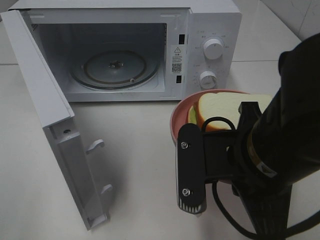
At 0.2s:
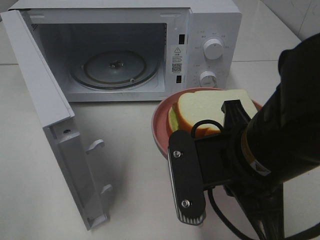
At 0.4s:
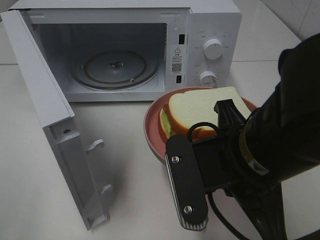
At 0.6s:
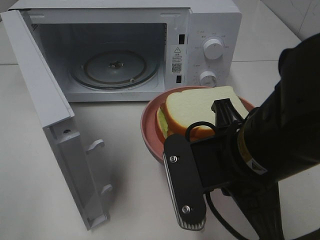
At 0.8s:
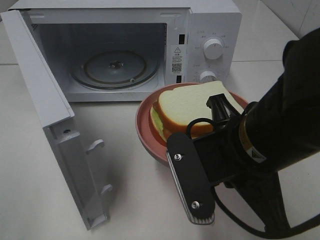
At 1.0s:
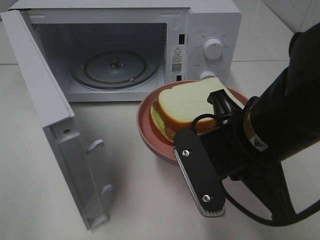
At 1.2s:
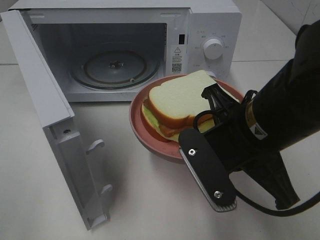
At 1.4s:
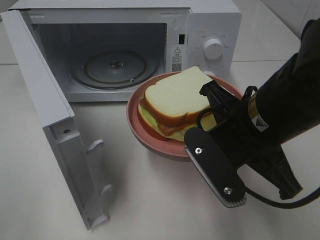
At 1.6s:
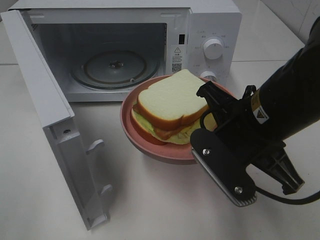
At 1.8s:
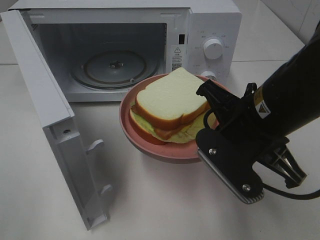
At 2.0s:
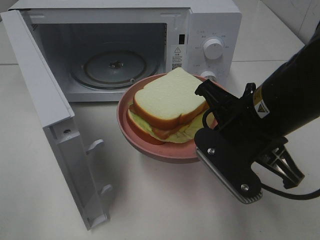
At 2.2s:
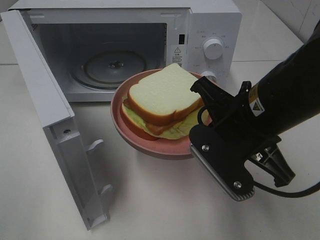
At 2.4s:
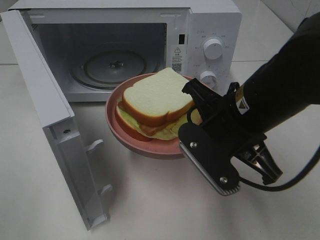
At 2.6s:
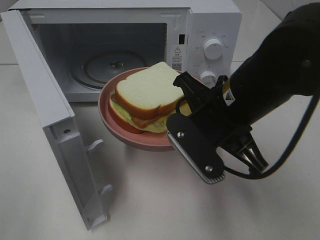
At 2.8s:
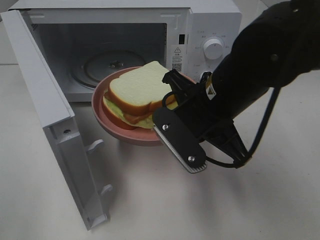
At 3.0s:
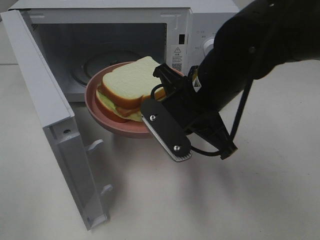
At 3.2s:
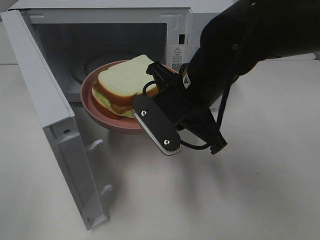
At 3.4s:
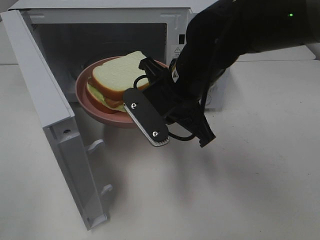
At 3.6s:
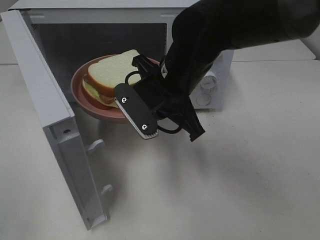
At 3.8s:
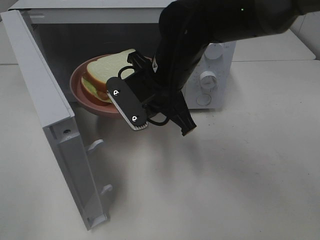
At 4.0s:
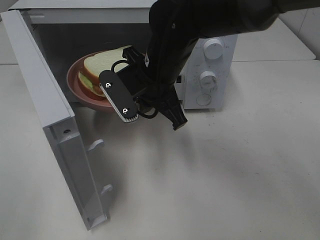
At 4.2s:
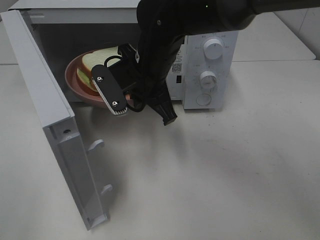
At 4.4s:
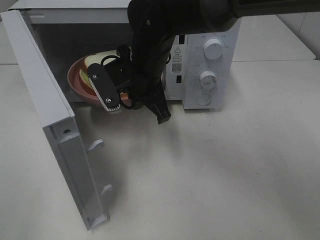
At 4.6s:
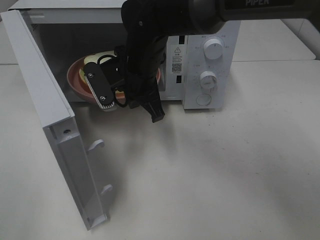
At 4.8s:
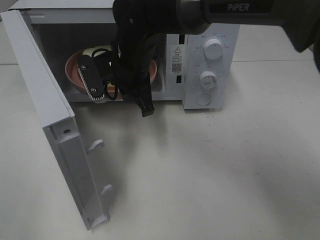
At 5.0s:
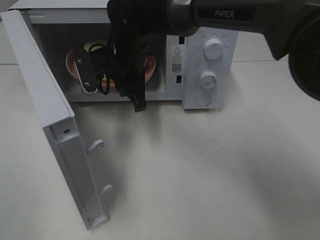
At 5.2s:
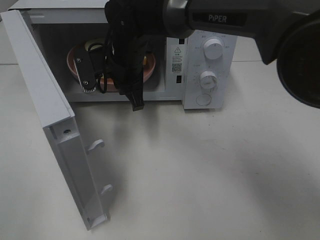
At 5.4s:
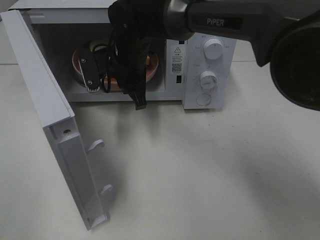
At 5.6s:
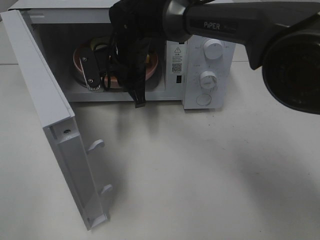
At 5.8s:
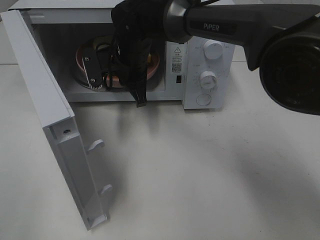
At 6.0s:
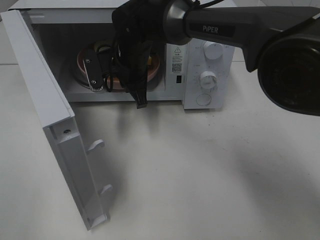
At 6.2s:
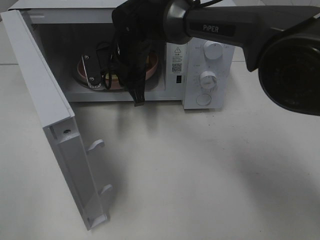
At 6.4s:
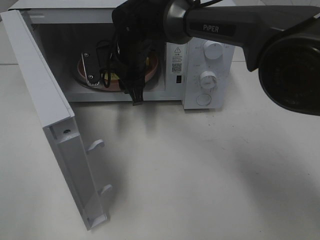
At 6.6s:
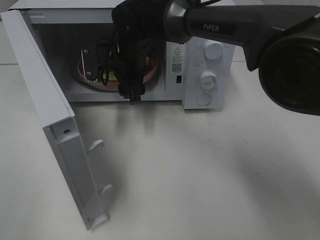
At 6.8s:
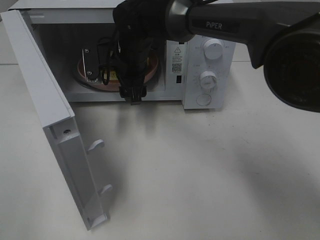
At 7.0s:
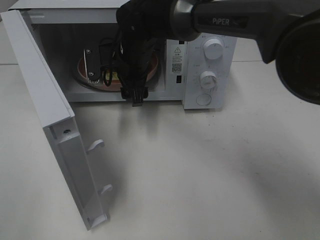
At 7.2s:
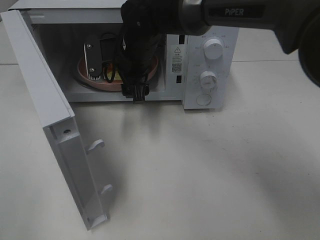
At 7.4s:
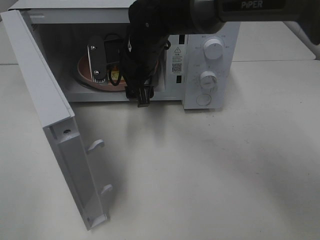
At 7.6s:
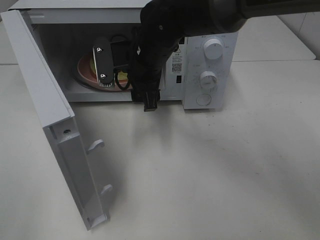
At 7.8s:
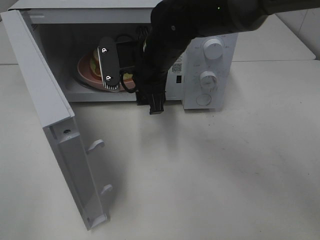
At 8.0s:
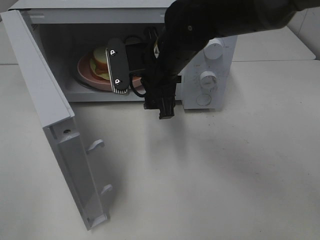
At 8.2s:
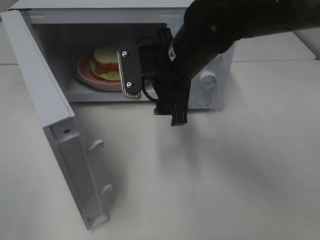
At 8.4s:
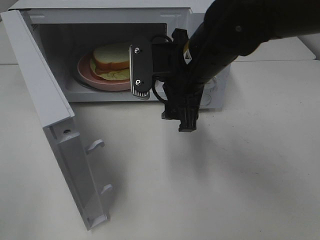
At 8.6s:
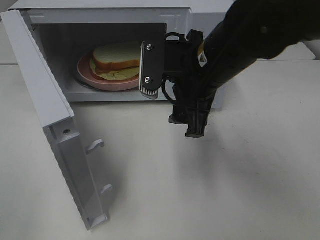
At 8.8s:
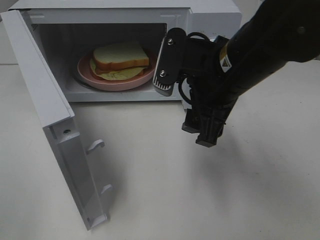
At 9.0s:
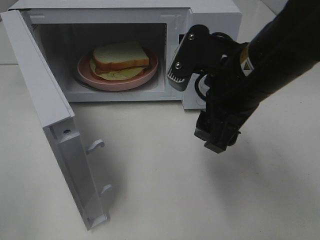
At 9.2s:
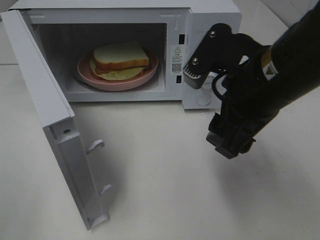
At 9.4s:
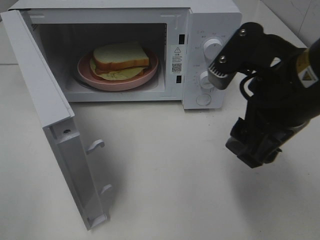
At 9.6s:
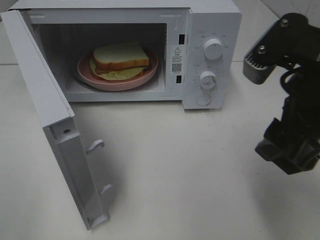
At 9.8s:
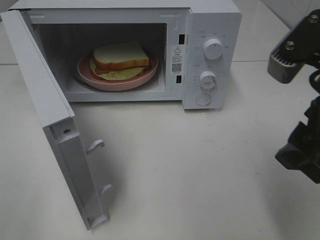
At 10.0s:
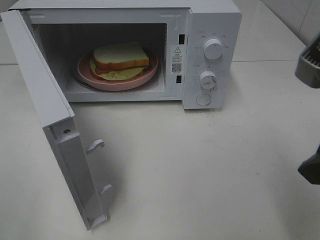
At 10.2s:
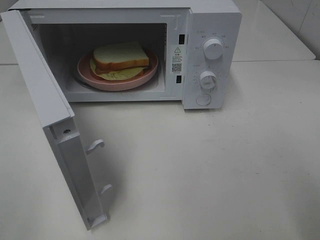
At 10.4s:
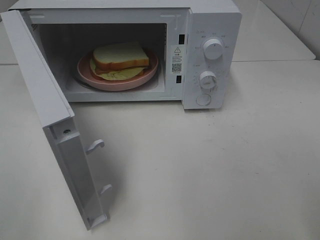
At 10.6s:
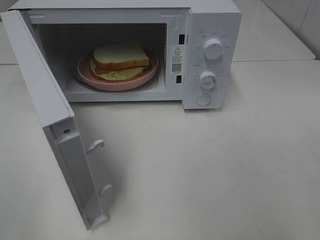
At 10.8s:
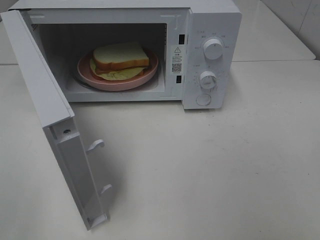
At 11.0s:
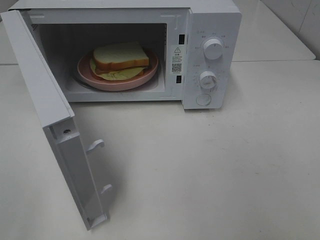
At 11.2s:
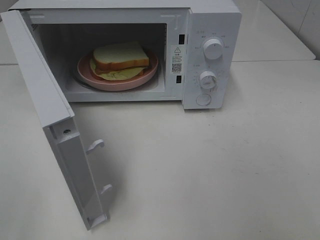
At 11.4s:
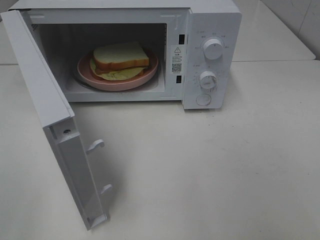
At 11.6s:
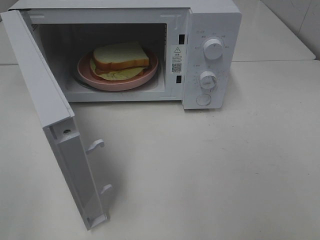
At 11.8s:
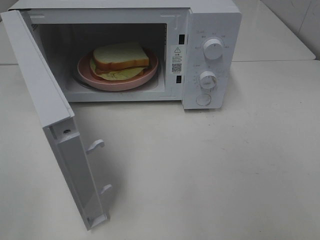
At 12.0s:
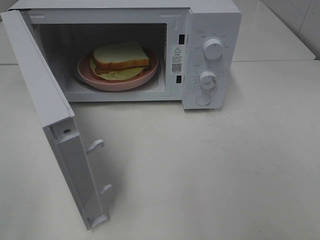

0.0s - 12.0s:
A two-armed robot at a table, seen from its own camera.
Task of the whole recording: Heat Sandwich.
Step, 0.0s - 7.8s: Right hand: place the plate in the microwave.
0.0s - 1.6s: The right gripper shifts about 5 cm forward.
1.6s - 3.0s: The right gripper goes approximately 10 cm forward and to the left.
3.0s - 4.4s: The right gripper moves forward and to the left, roughly 10 cm.
4.4s - 6.0s: The right gripper heads forward, covering some 5 cm.
6.0s - 7.6s: The right gripper goes roughly 5 cm backward, and opens its fingers.
7.6s - 9.0s: The right gripper goes approximately 20 cm backward and to the right.
9.0s - 10.4s: The right gripper moves backward, to the right and upward, roughly 20 cm.

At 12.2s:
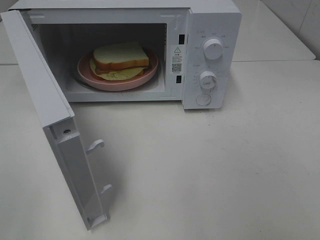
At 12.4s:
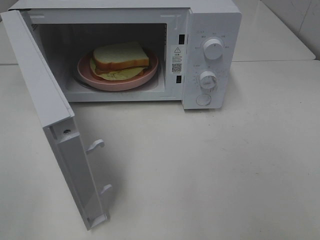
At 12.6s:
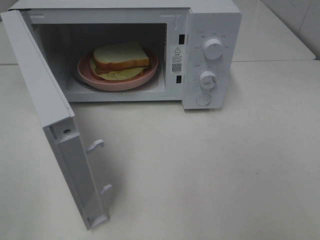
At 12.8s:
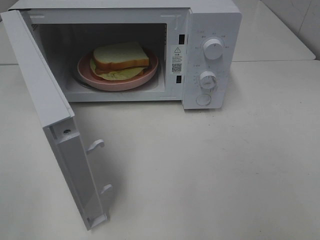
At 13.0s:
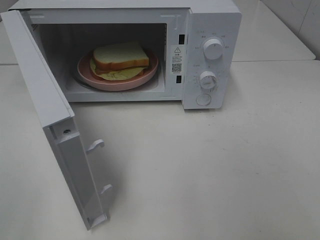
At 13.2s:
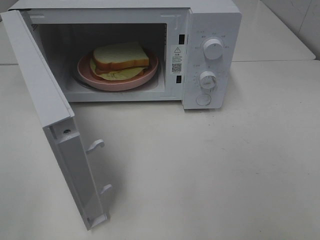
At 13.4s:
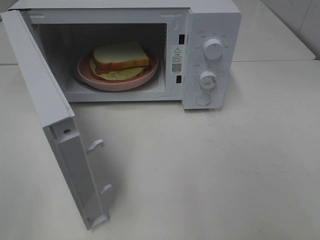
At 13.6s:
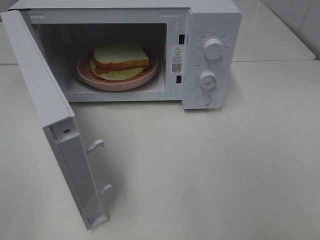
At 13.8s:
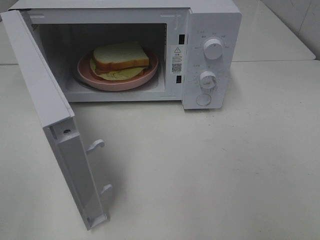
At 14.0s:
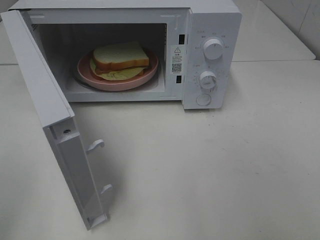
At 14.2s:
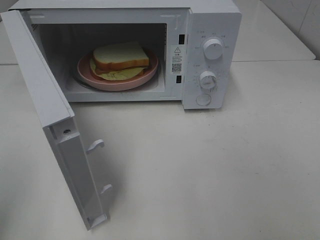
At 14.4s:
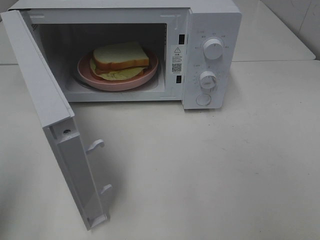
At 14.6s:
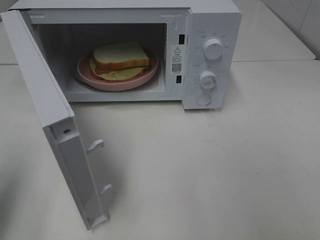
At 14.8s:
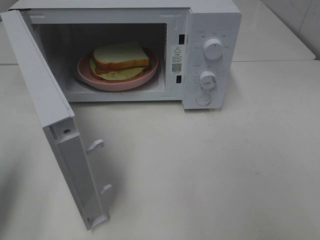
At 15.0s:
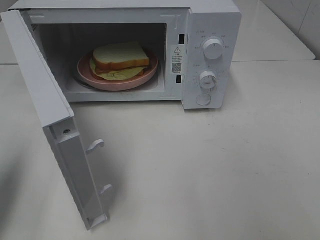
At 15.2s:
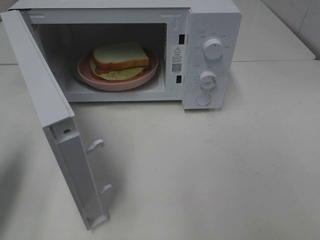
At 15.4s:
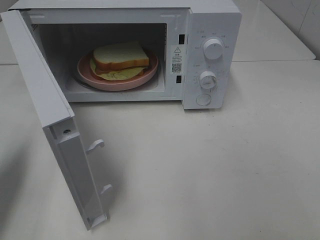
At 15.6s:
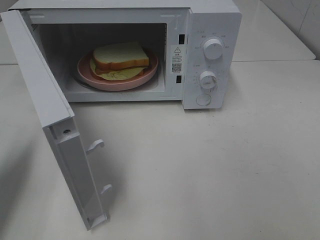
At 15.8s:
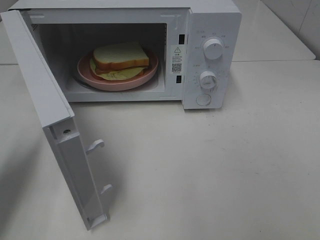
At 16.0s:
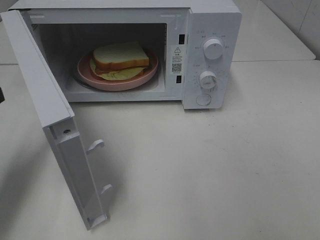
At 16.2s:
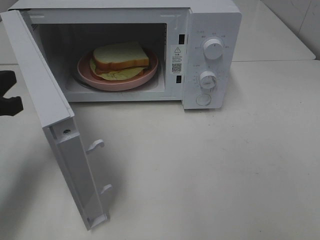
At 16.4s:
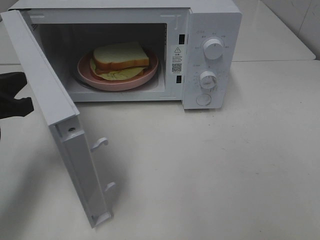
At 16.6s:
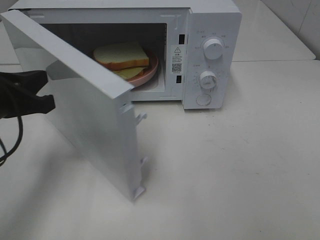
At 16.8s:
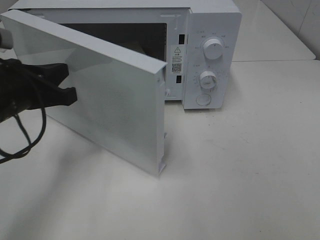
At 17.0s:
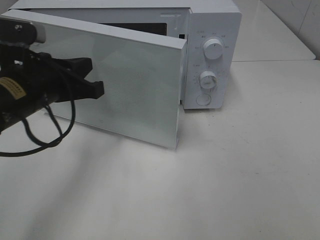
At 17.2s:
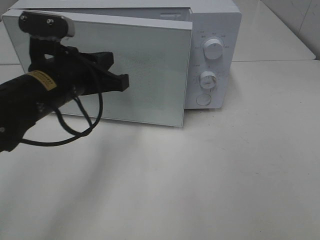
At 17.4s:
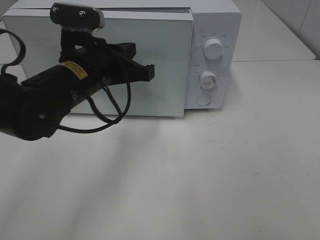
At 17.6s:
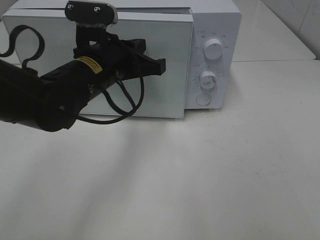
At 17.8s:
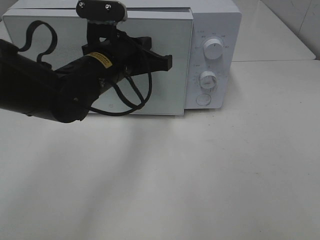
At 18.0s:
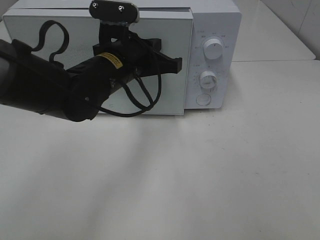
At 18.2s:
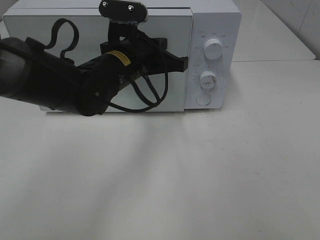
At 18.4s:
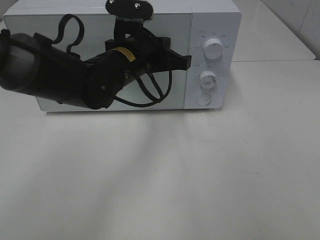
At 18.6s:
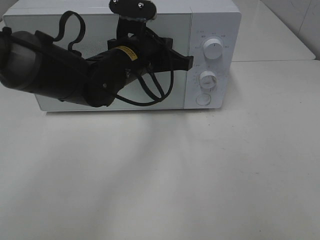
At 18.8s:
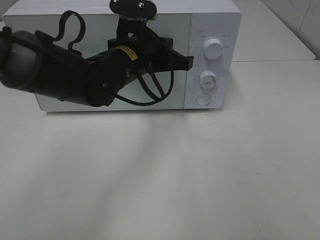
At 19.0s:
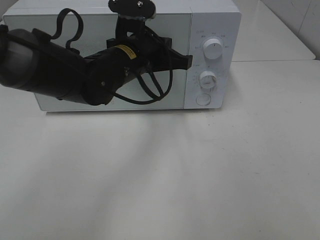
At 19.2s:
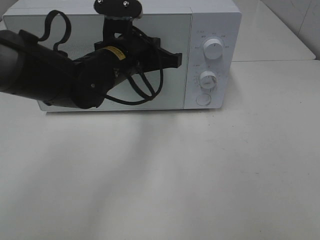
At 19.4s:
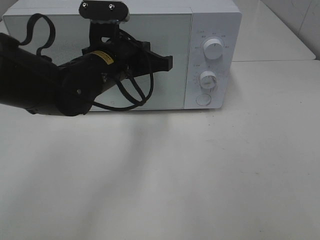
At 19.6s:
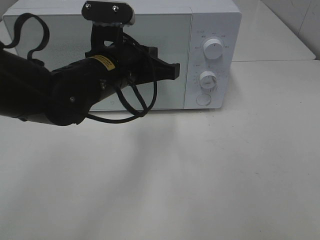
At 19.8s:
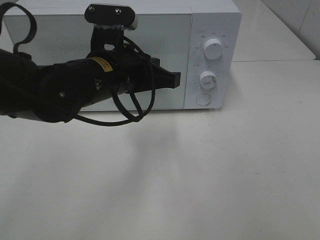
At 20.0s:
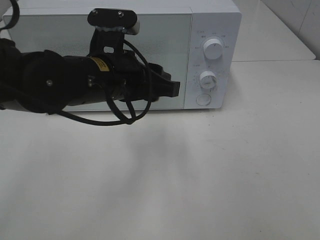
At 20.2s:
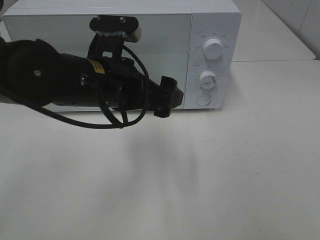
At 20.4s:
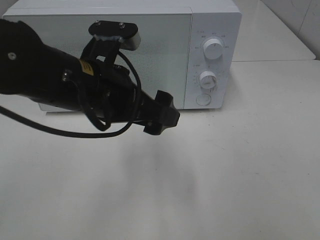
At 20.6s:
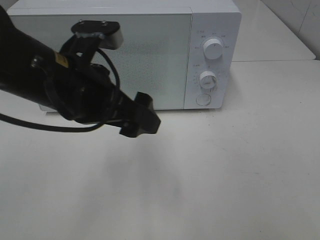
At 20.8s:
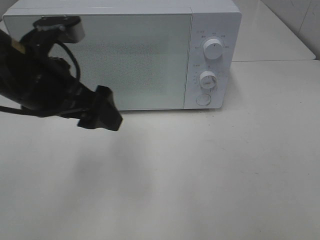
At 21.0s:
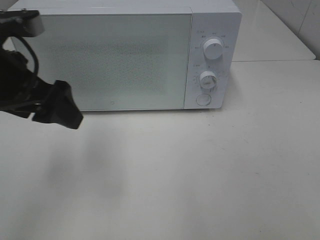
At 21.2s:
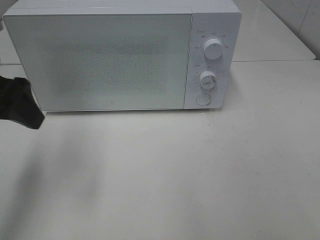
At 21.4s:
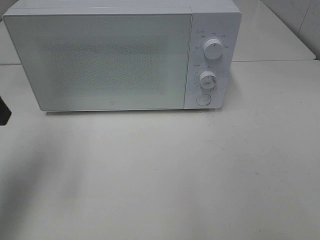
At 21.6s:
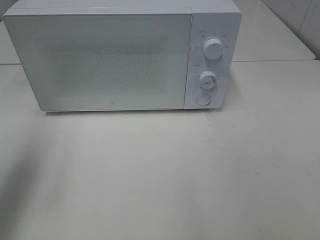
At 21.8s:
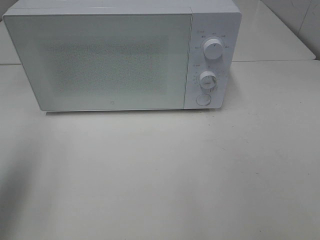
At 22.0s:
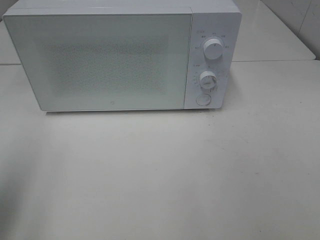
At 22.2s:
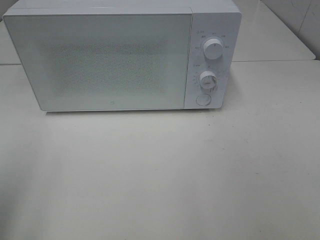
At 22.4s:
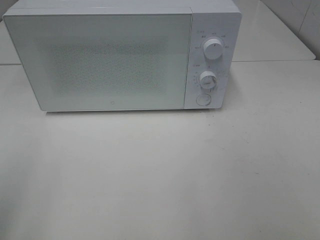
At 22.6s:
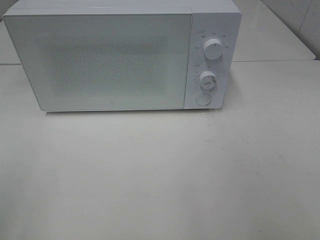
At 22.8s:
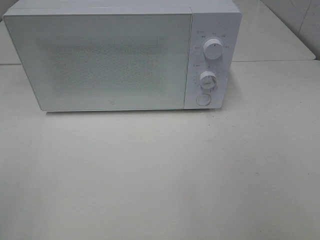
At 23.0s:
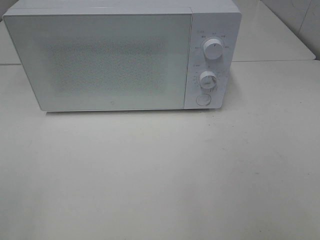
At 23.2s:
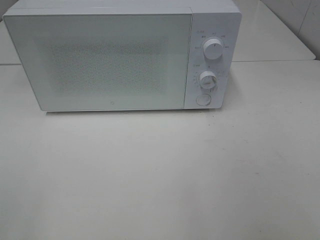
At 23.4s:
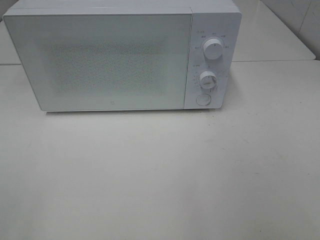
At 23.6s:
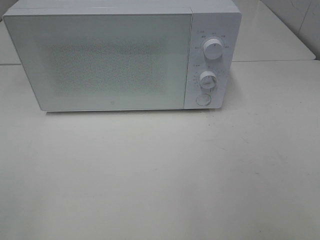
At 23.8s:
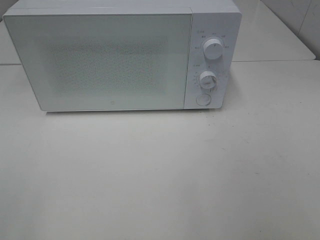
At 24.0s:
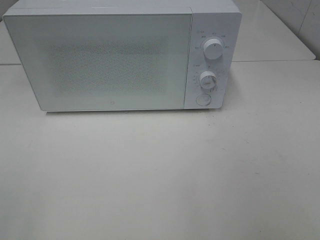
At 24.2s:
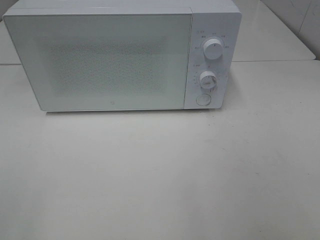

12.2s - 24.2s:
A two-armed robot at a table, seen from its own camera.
Task of the whole recording: Heat Sandwich.
Step, 12.2s - 19.6s: Left hand: close the microwave door.
13.8s - 15.2s: The left gripper travels forward by approximately 15 cm, and closes.
15.2s - 16.6s: The left gripper travels to the right, forward and downward by approximately 10 cm.
16.6s - 18.2s: The left gripper travels to the right and forward by roughly 20 cm.
18.2s - 19.8s: The left gripper heads backward, covering some 5 cm.
19.8s - 21.2s: The left gripper travels to the left and upward by some 20 cm, and opens its fingers.
21.2s - 22.6s: The left gripper heads backward, covering roughly 20 cm.
